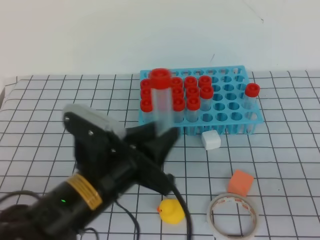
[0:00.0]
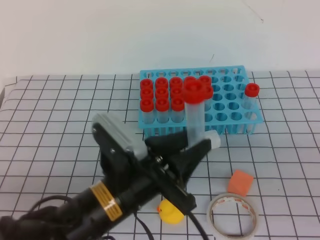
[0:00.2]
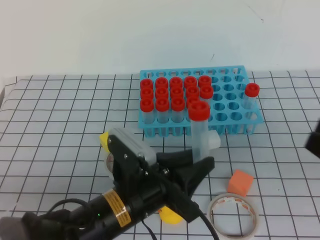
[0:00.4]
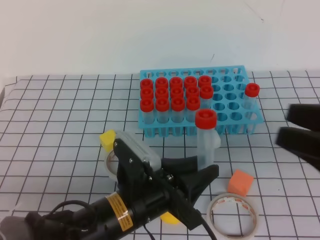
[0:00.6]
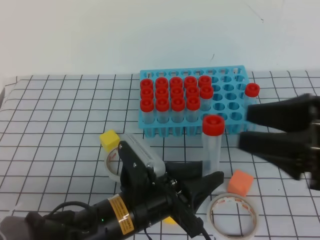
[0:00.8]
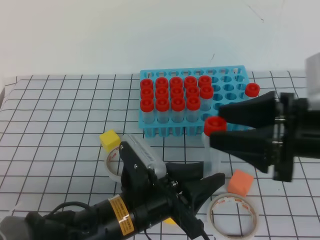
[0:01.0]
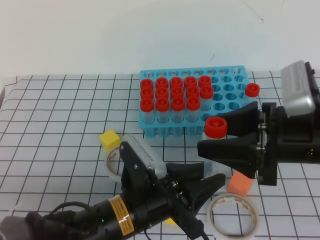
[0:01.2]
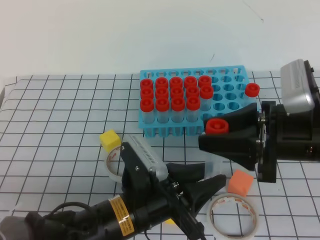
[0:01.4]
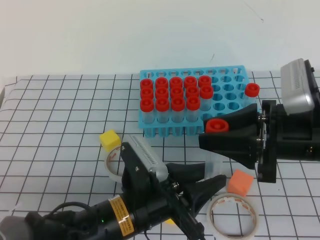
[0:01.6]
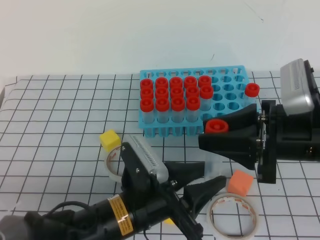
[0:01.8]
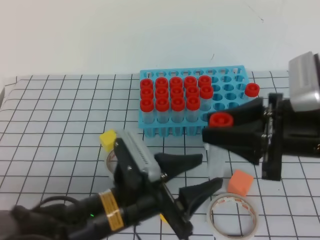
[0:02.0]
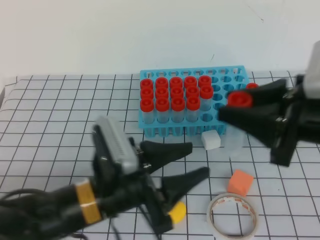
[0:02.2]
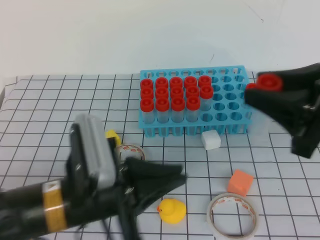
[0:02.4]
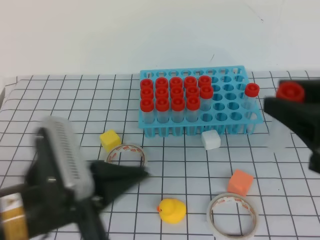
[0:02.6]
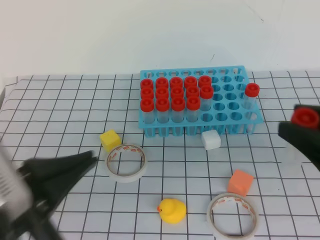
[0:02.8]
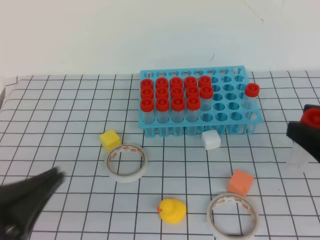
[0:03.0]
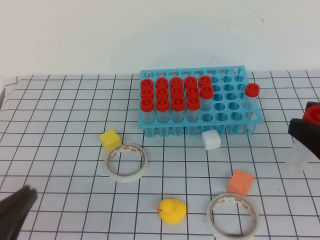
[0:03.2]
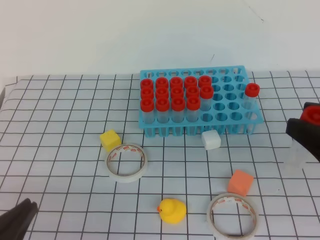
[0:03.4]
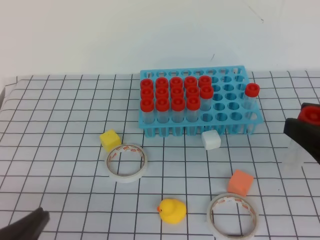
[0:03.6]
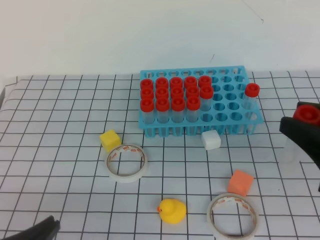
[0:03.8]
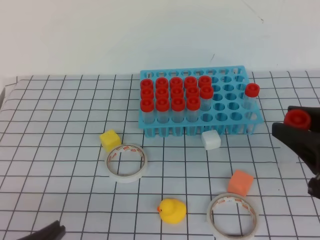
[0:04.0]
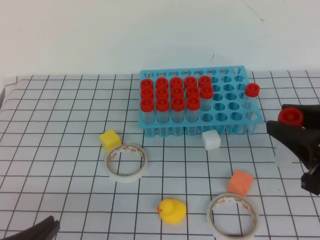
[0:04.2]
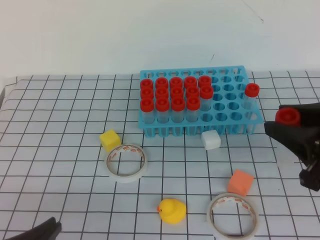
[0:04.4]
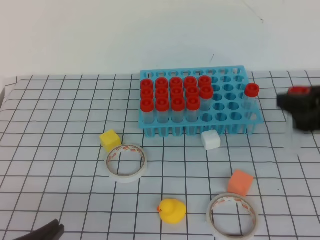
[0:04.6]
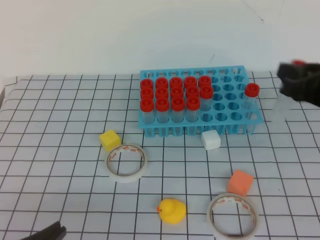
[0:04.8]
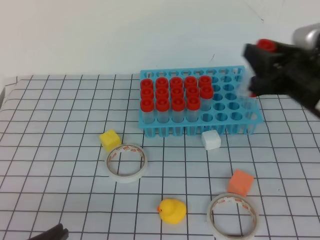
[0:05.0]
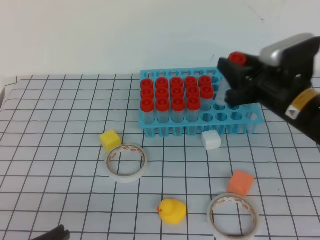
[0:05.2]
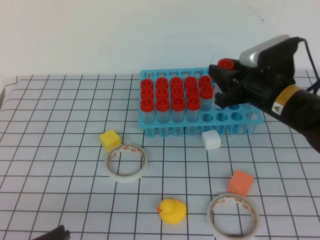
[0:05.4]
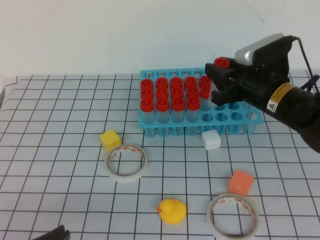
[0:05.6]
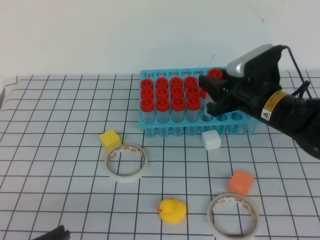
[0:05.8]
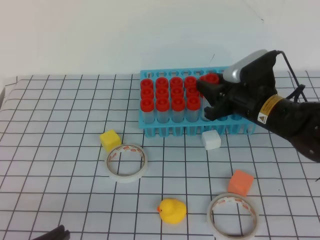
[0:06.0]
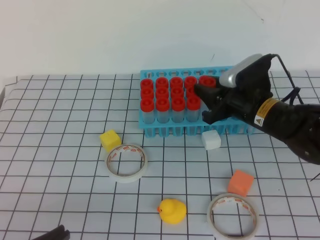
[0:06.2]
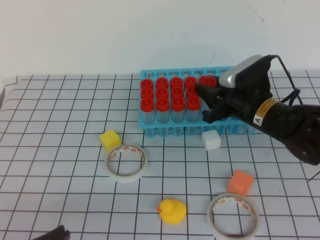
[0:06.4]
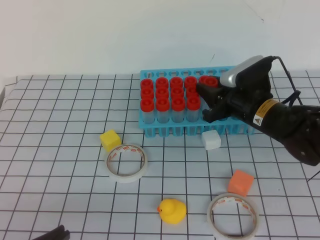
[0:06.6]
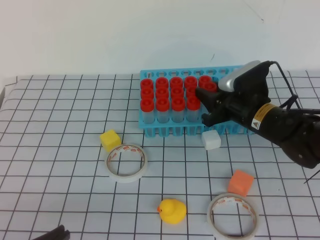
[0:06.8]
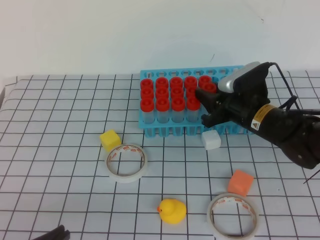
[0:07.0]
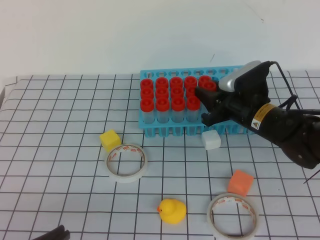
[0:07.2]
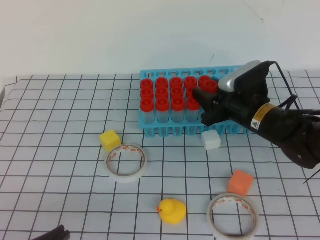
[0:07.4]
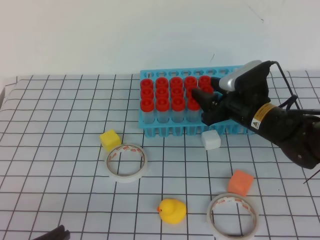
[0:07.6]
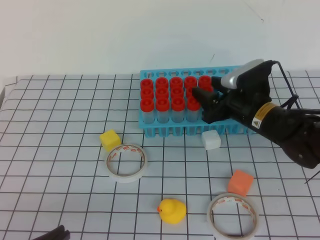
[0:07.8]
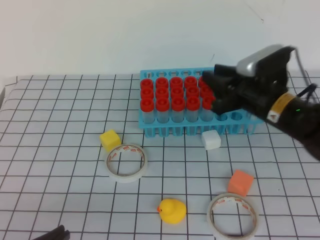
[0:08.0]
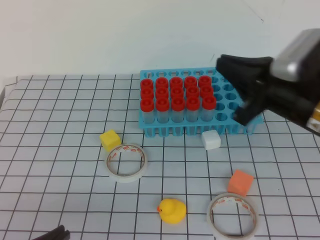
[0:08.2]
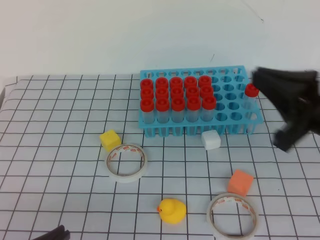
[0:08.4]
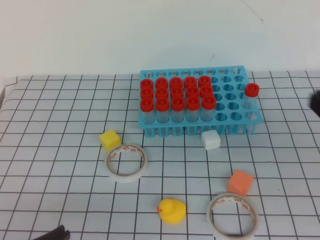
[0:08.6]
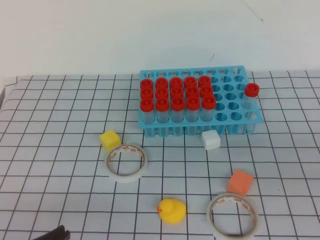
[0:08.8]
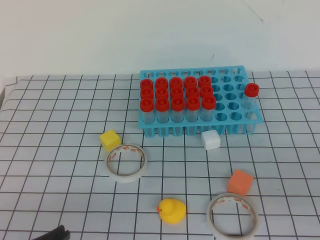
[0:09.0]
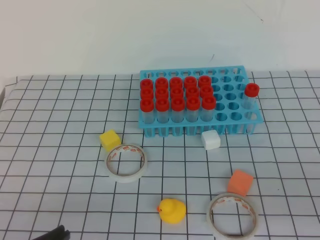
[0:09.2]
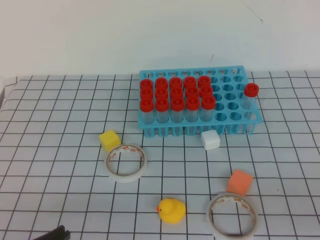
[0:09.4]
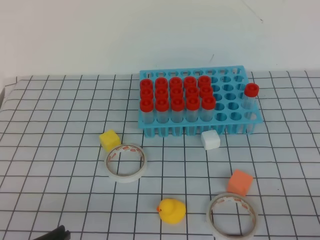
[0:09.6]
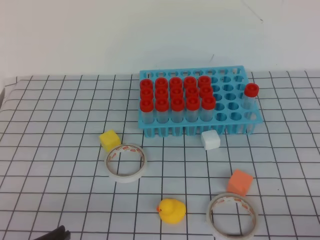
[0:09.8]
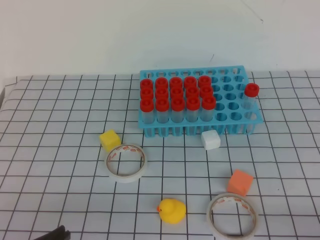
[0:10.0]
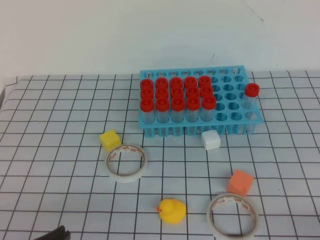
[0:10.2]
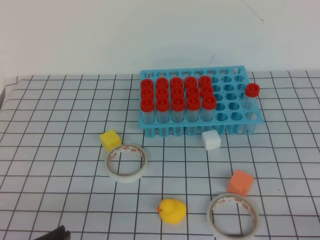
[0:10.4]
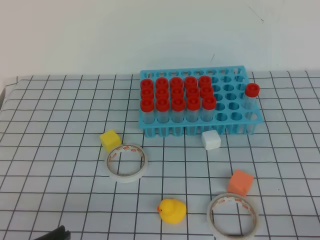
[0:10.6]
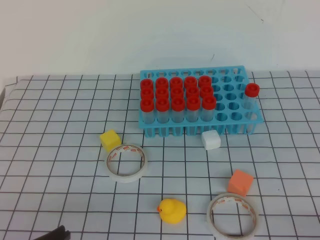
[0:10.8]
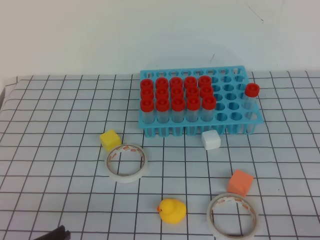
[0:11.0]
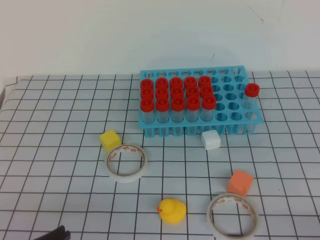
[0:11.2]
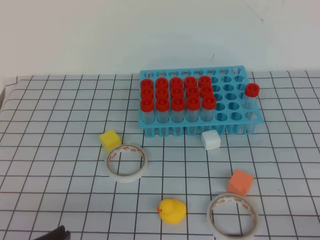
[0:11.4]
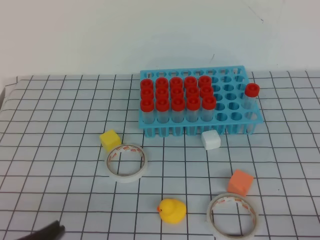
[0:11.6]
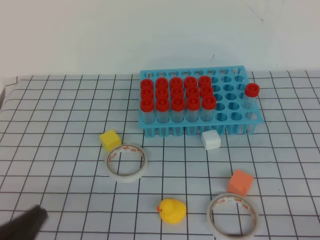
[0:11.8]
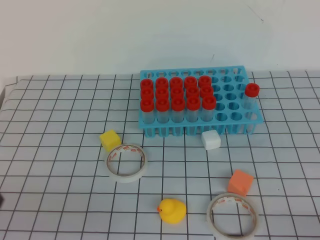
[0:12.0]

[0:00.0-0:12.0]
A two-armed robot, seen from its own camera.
0:00.0 to 0:01.6: The right gripper travels forward and to the left by approximately 20 cm, and opens, while the left gripper heads downward, covering about 5 cm.
0:01.6 to 0:03.0: The right gripper heads backward and to the right, covering roughly 10 cm, while the left gripper is displaced to the left, backward and upward by roughly 20 cm, and closes.
0:03.0 to 0:04.4: The left gripper moves downward, approximately 5 cm.
0:04.4 to 0:06.0: The right gripper travels forward, downward and to the left by roughly 20 cm.
0:06.0 to 0:07.6: The right gripper opens its fingers.
0:07.6 to 0:09.0: The right gripper shifts approximately 30 cm backward and to the right, and closes.

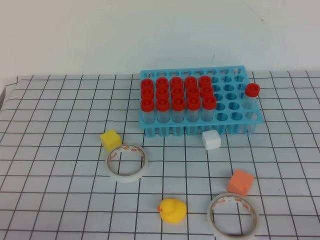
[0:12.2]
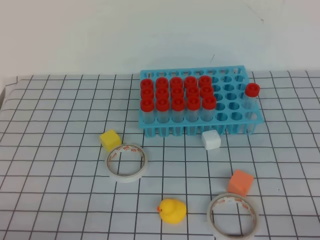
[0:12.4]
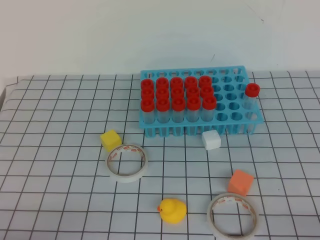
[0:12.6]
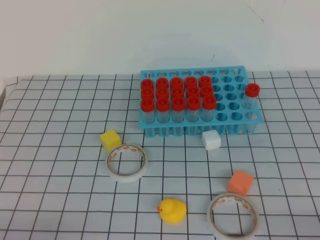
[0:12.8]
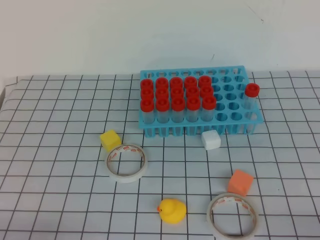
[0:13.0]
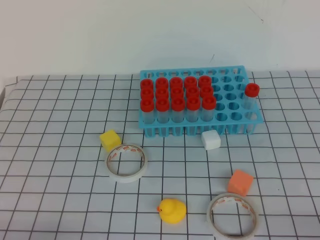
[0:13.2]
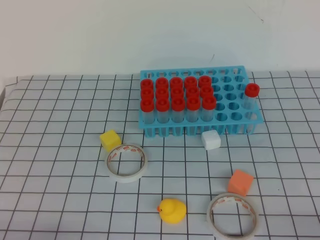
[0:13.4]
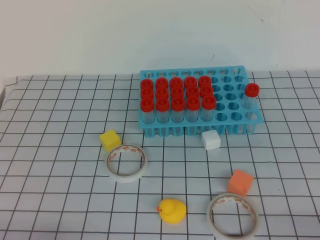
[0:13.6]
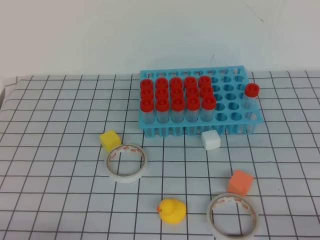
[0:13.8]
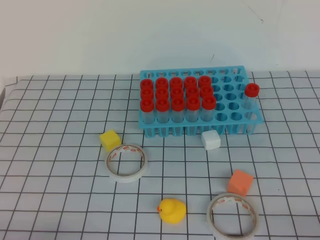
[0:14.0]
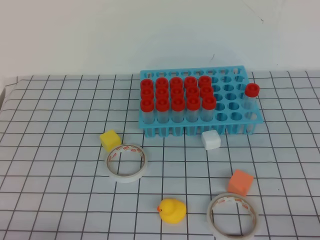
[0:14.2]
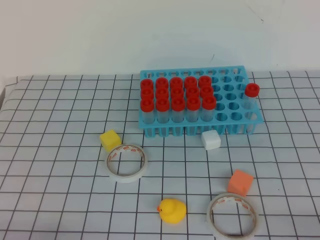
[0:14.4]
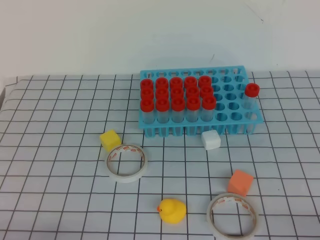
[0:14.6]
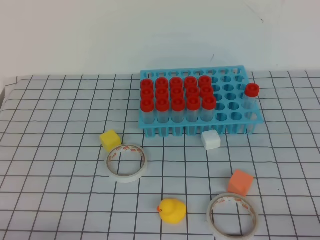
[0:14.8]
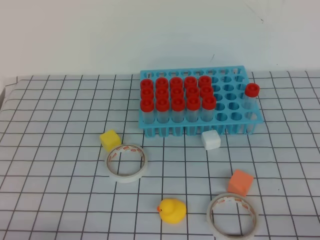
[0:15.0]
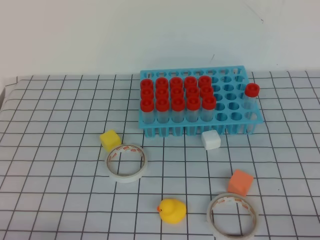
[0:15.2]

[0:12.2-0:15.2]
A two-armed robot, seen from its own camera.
0:13.8 to 0:15.2: Neither gripper changes place.
